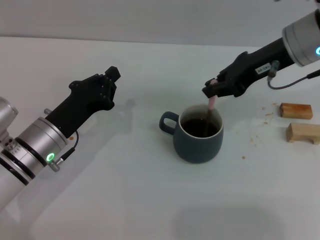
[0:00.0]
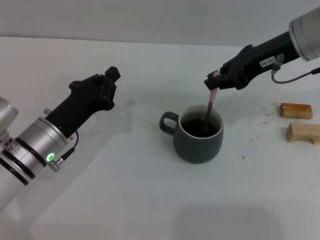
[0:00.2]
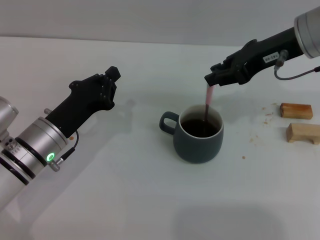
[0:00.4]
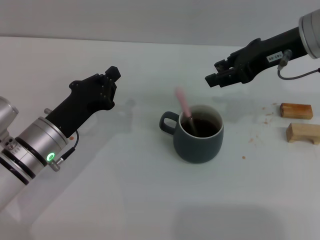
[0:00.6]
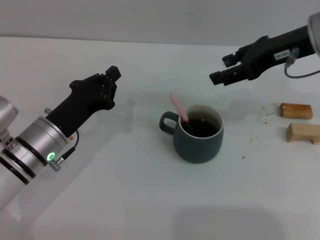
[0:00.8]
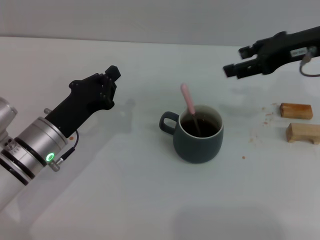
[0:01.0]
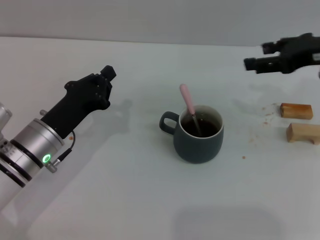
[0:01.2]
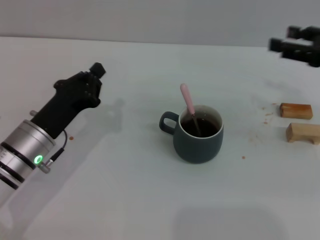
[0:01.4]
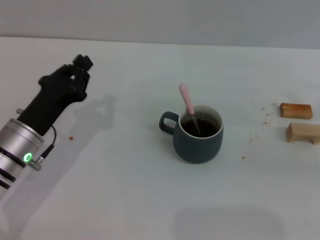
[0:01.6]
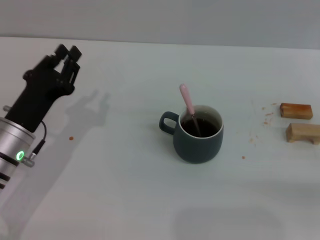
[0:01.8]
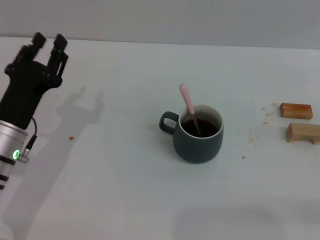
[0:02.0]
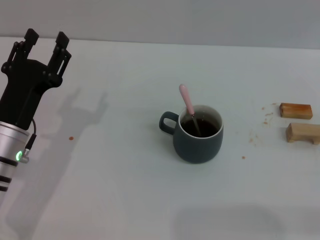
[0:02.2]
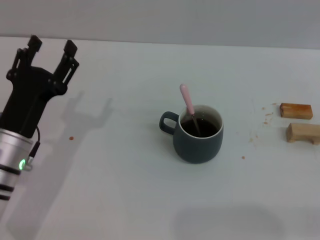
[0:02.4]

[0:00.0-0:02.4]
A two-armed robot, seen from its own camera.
Task of the whole recording: Move the grey cup to the center, lift the pink spoon, stir it three times in the cup, and put the spoon into the cup.
0:00.0 to 0:01.2: The right gripper heads to the right, covering about 10 cm, and opens.
0:01.2 to 0:02.4: The right gripper travels backward, to the right and downward by about 25 cm. The left gripper opens up.

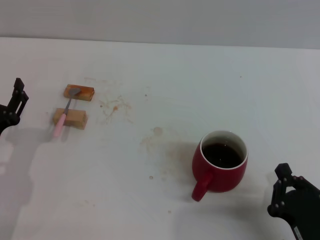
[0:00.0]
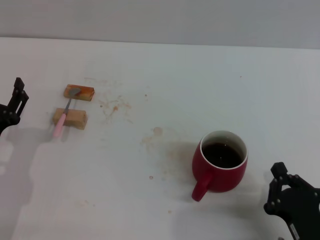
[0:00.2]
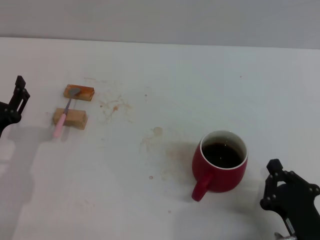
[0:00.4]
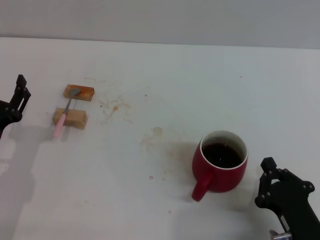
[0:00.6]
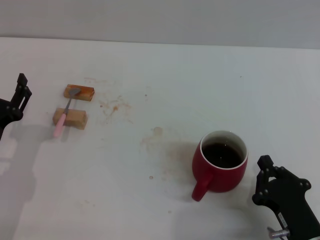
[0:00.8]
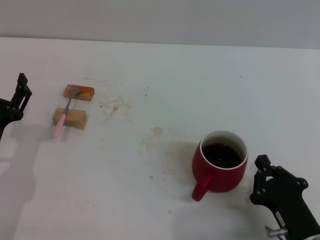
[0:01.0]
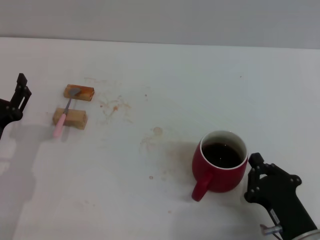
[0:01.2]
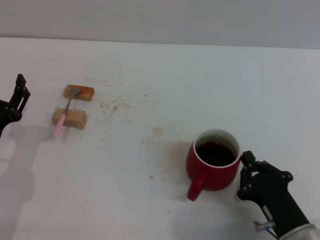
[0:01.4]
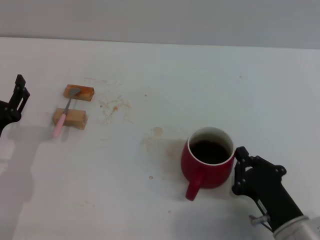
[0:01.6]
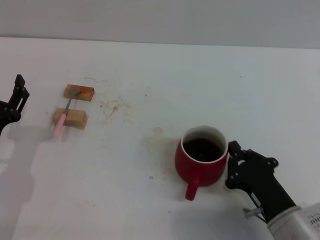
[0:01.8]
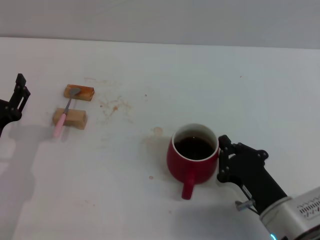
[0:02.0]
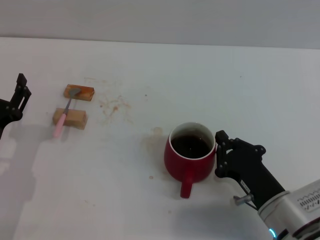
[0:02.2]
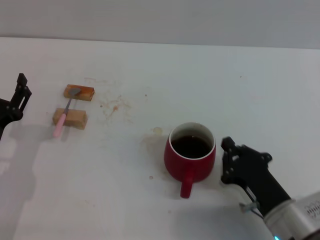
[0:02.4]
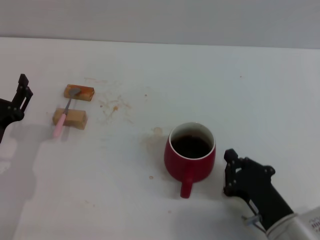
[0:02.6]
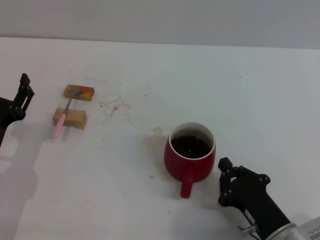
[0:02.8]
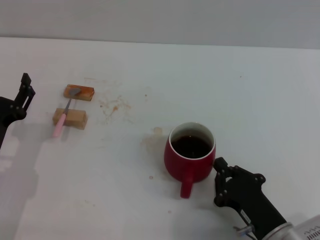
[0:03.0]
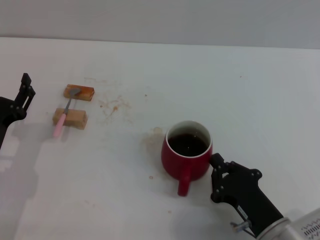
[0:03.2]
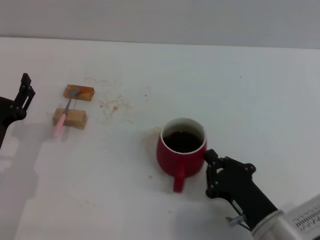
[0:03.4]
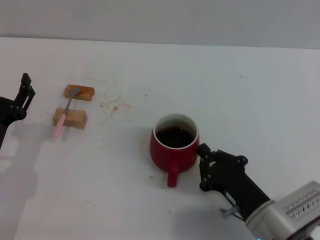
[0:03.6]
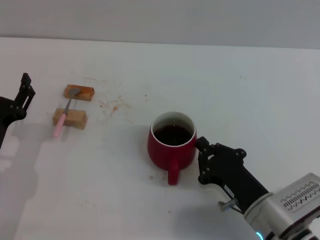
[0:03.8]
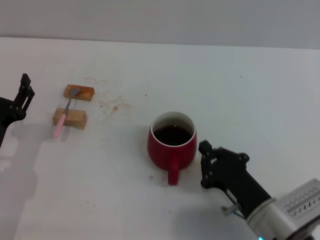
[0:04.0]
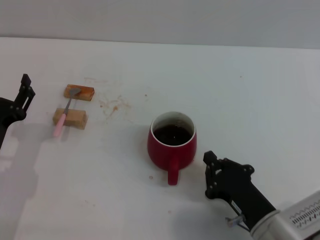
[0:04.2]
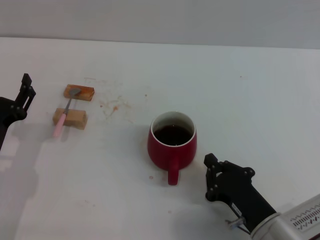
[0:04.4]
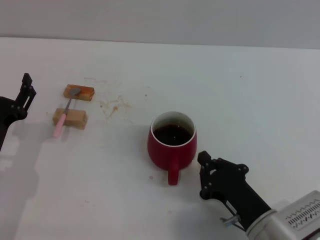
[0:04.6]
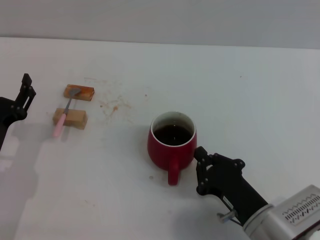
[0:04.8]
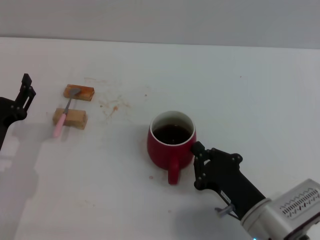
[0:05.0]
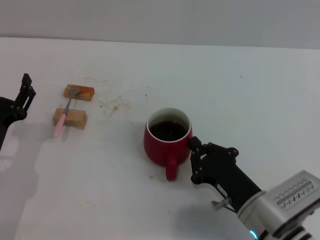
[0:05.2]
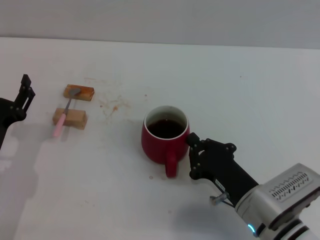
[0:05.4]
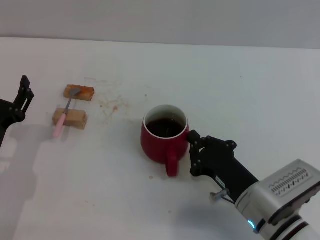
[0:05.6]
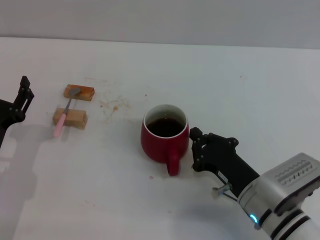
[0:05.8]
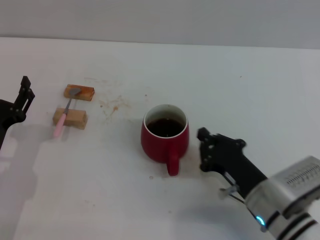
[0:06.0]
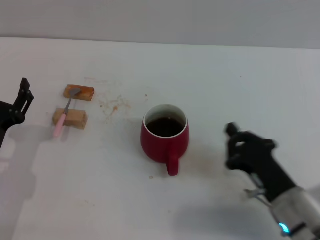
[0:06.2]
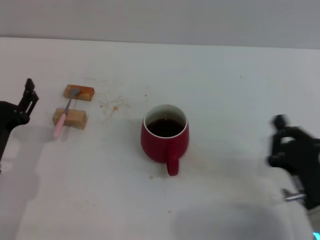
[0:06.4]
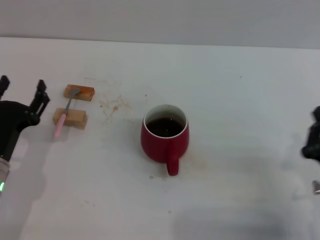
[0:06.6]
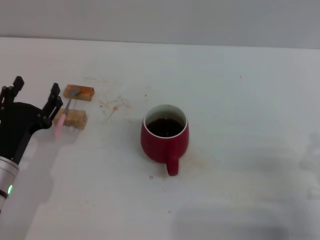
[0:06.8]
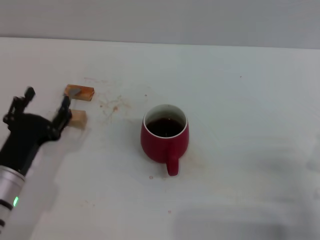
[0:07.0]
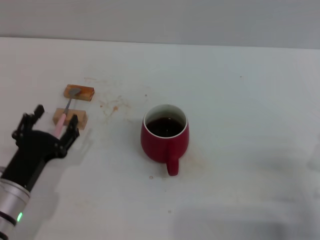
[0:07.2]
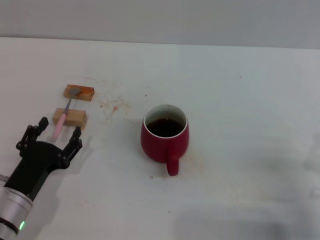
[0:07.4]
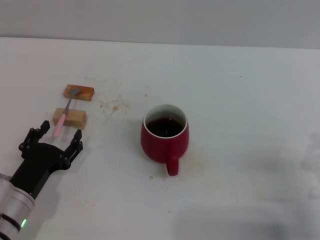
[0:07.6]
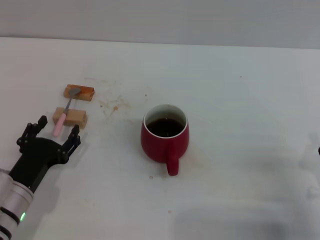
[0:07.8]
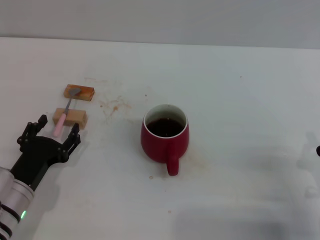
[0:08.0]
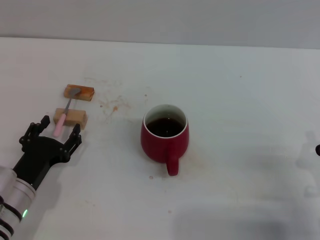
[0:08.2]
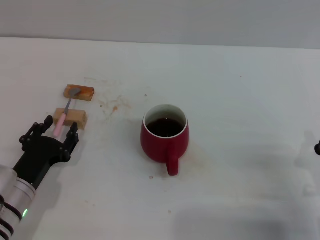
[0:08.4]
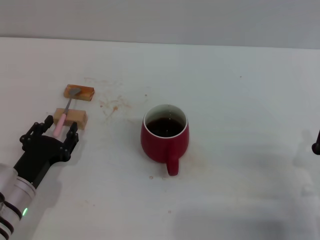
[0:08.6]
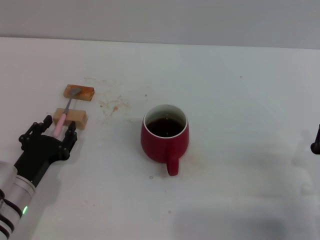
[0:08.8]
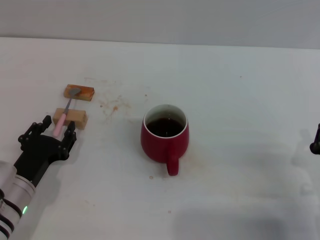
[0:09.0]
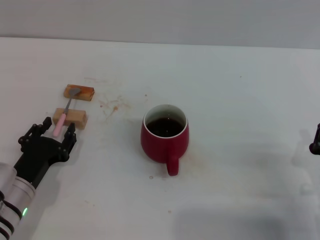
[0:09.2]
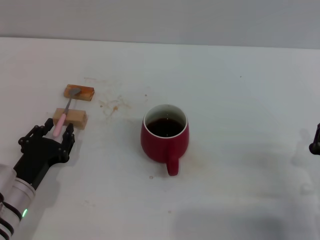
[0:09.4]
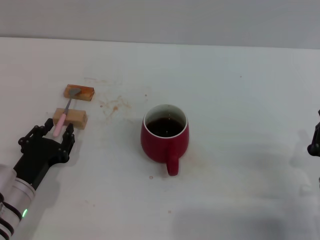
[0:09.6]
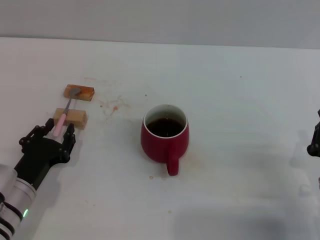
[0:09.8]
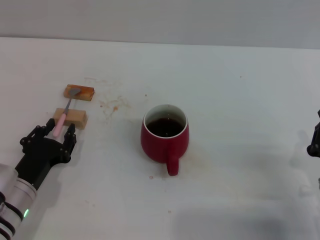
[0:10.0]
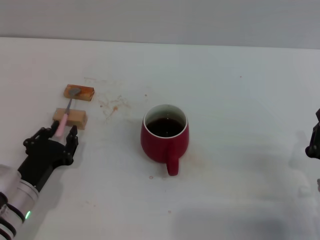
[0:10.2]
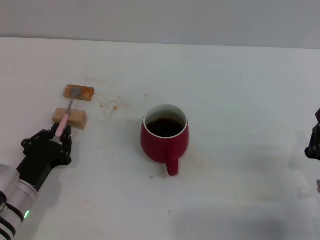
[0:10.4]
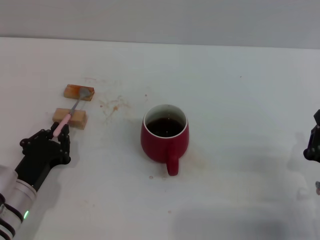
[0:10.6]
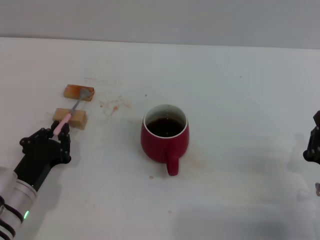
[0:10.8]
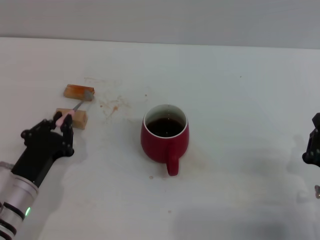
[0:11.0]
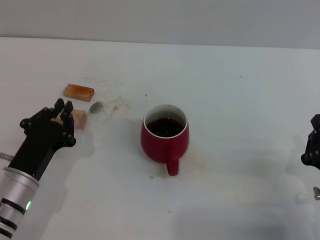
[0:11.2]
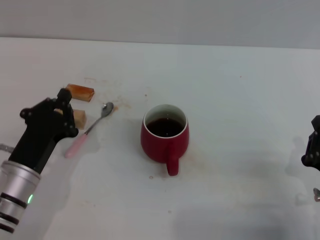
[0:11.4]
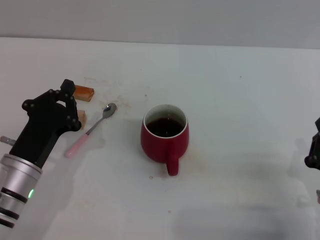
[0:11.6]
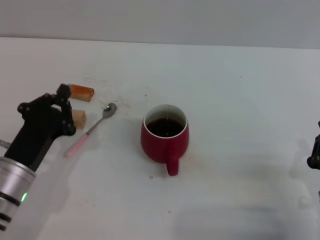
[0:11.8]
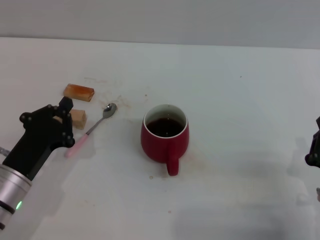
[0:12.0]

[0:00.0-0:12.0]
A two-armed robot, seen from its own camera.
Task of the whole recording: Move the red cup to the center, lift the pink spoon, stir it three times in the cup, and put the spoon into the cup.
Step, 0:00.0 to 0:06.0: Move the cup with coffee to the center of view with the right gripper.
0:00.0 to 0:01.6: The right gripper moves forward, approximately 5 cm.
0:01.6 to 0:04.4: The grippers stay close to where they were, moving slightly.
0:04.4 to 0:06.0: The grippers make only small movements.
0:06.0 to 0:07.6: The right gripper is displaced to the right by roughly 10 cm. The left gripper shifts by approximately 5 cm.
0:07.6 to 0:09.0: The grippers make only small movements.
0:09.0 to 0:10.4: Neither gripper changes place.
0:10.4 to 0:12.0: The left gripper closes.

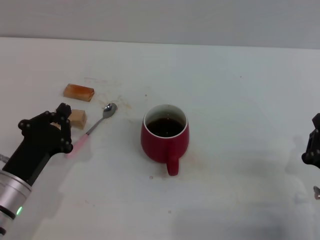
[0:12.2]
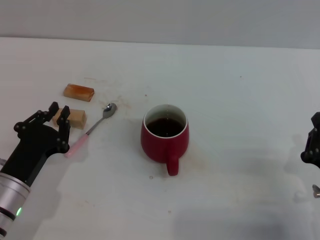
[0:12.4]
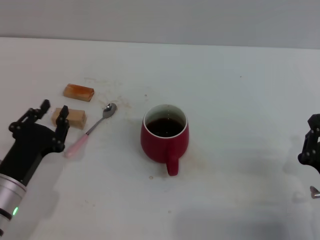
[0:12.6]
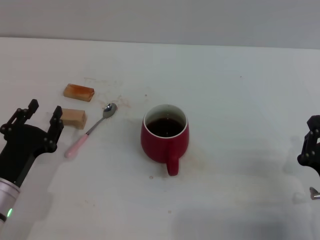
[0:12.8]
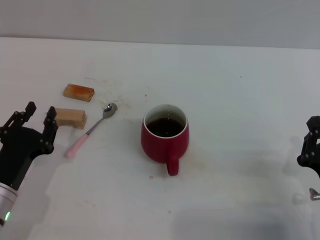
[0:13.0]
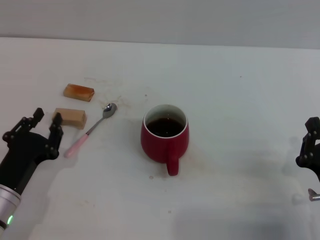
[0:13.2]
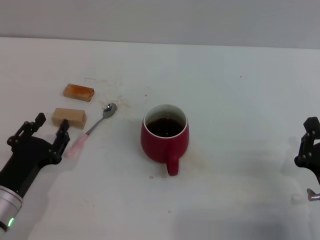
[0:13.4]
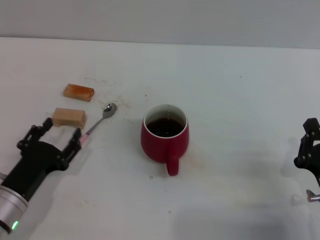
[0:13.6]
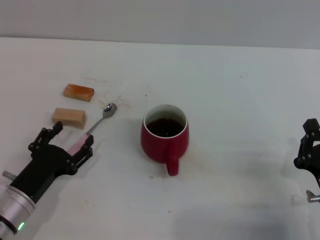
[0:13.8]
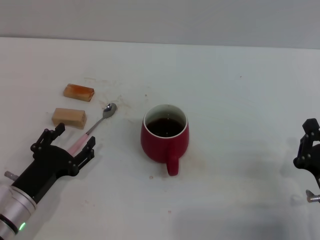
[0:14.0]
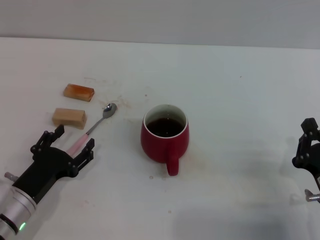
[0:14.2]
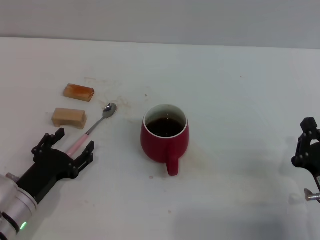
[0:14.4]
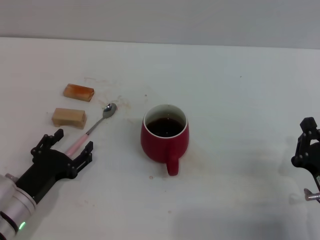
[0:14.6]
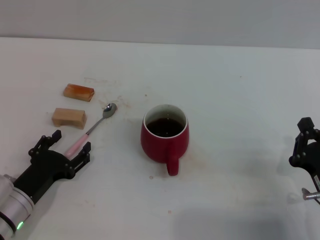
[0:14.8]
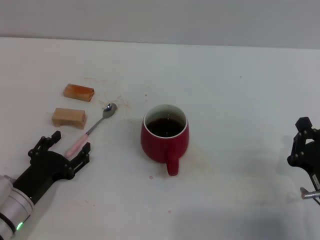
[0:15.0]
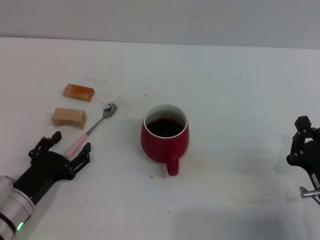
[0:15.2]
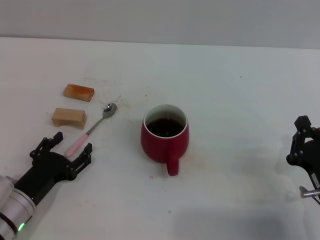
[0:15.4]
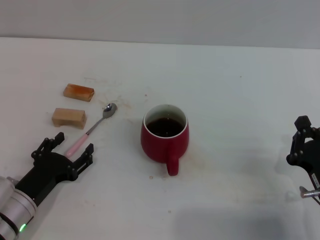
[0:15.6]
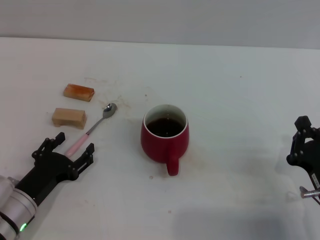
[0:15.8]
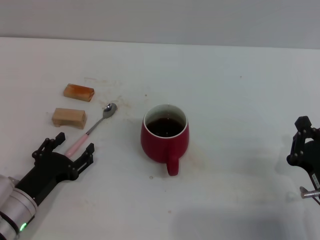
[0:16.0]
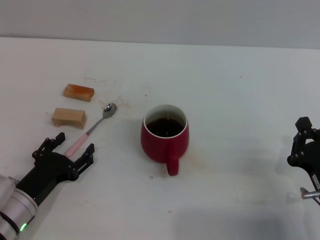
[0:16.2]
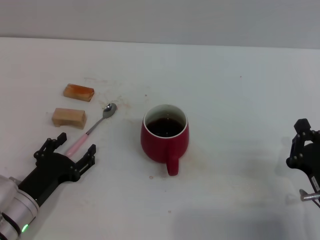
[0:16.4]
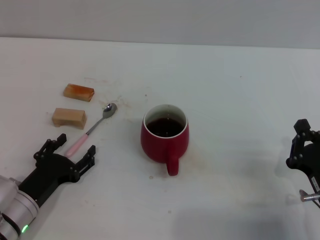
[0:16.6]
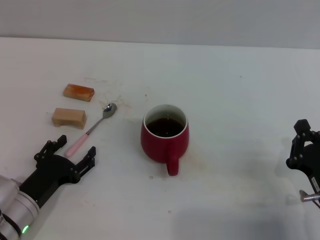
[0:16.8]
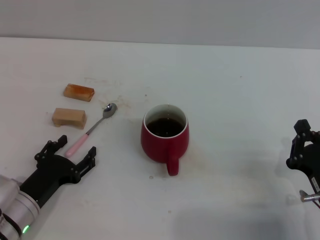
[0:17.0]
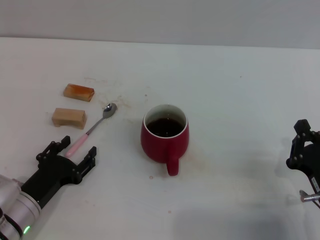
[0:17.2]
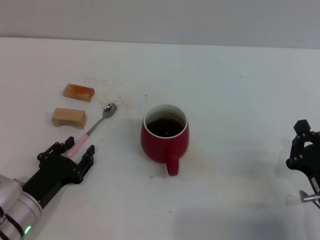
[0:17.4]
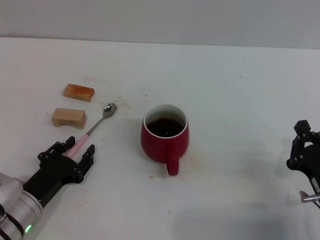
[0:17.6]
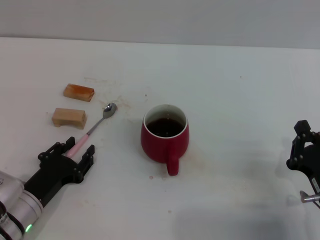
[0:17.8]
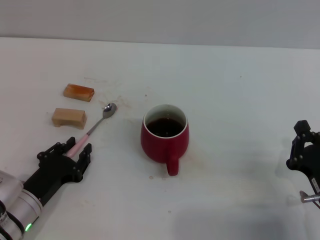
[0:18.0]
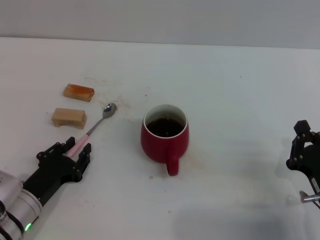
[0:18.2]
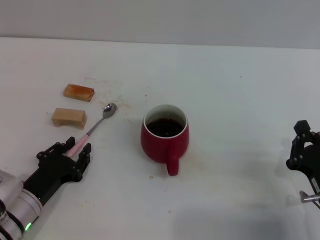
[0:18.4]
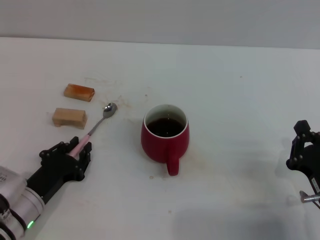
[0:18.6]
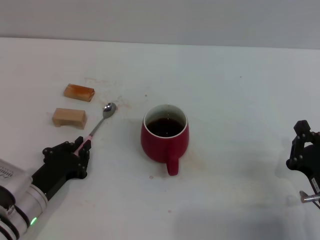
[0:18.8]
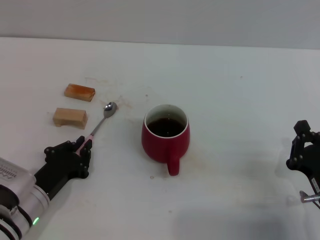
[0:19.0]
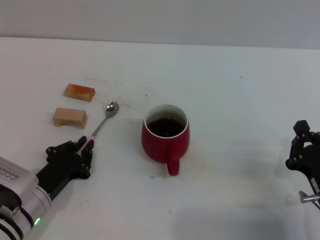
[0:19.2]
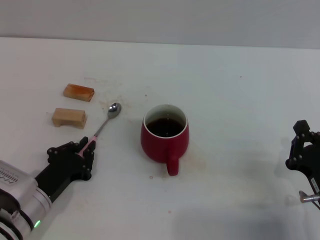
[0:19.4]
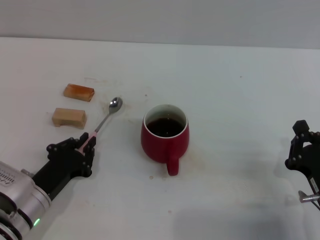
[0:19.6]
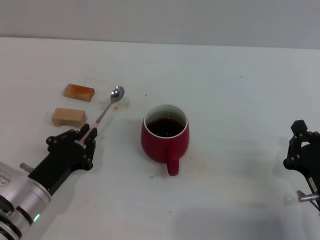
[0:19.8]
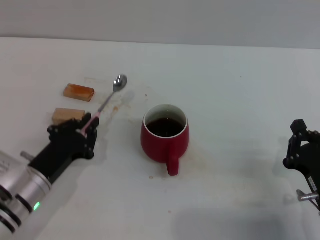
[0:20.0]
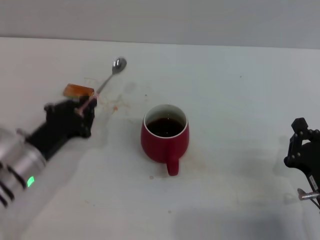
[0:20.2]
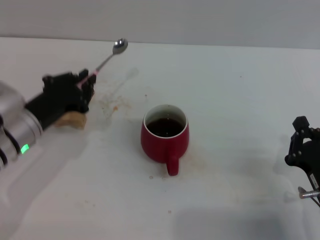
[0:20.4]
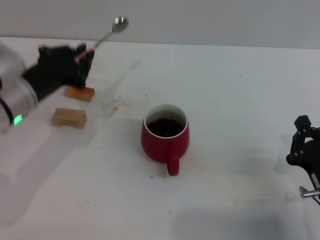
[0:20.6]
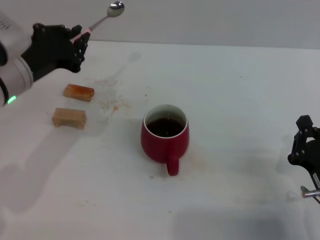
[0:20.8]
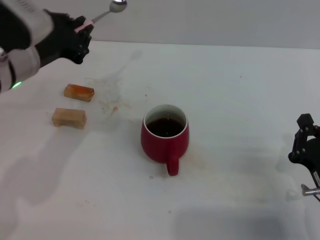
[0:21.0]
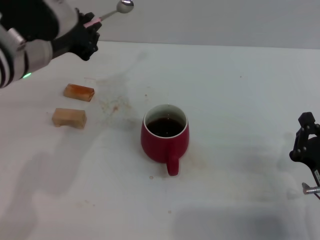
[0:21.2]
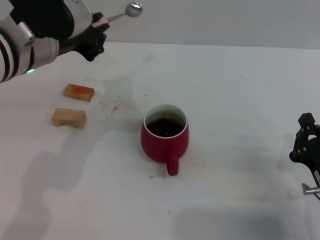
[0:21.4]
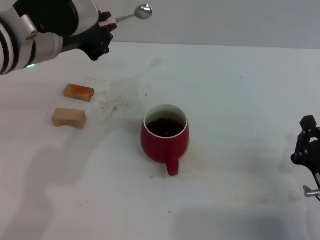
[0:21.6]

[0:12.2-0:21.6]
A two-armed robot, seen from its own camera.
Task of the whole recording: Move the red cup to the center, lift the pink spoon, stir it three times in the cup, and put the spoon into the cup.
Step, 0:12.2 to 0:20.8: Pick up the spoon with the left gripper.
0:12.2 to 0:13.8: The left gripper opens its fingers.
0:13.8 to 0:15.4: The grippers stay close to where they were, moving slightly.
0:15.4 to 0:17.0: The two grippers keep their place.
0:17.0 to 0:18.4: The left gripper closes its fingers.
0:18.4 to 0:20.0: The grippers make only small movements.
0:20.0 to 0:21.6: The left gripper goes some 25 cm upward.
